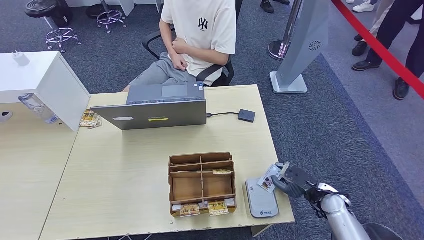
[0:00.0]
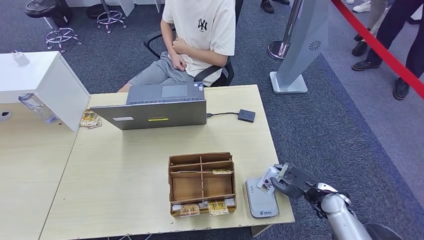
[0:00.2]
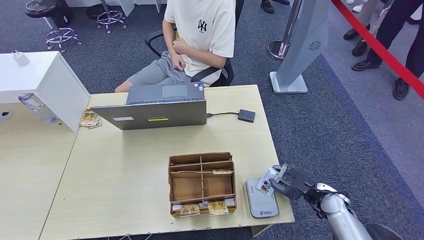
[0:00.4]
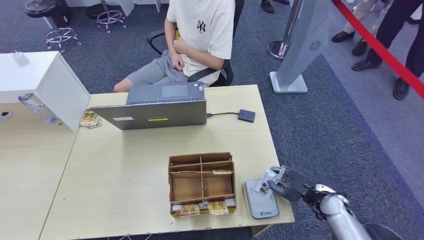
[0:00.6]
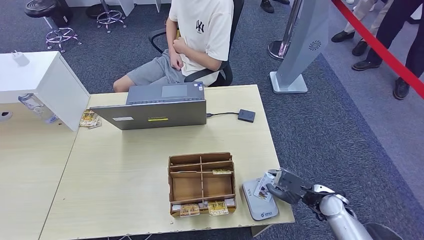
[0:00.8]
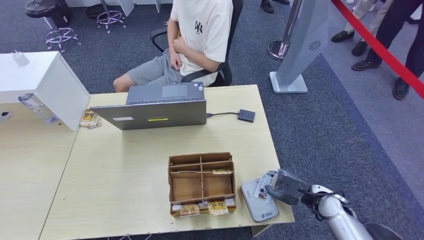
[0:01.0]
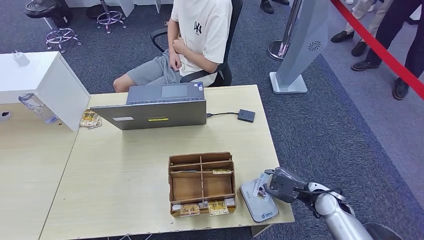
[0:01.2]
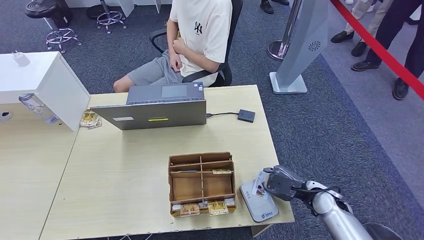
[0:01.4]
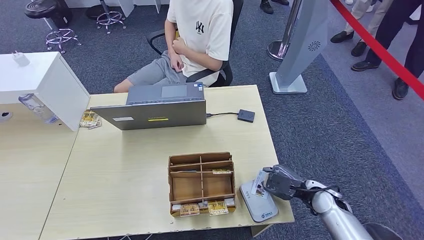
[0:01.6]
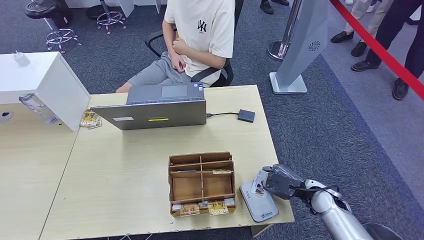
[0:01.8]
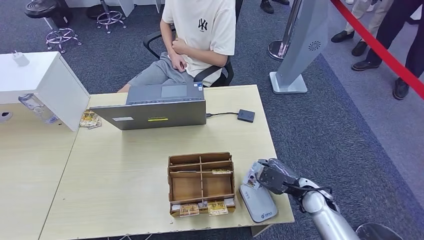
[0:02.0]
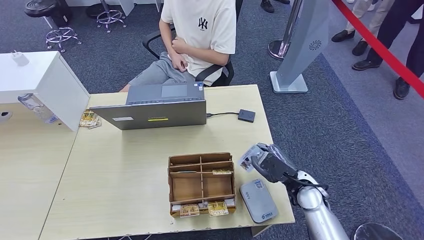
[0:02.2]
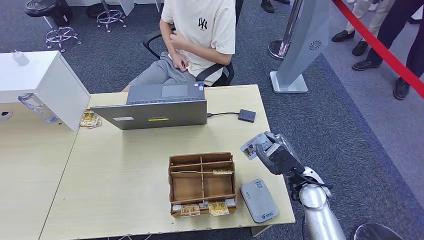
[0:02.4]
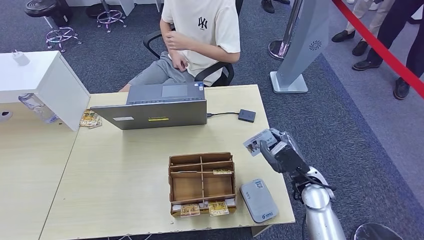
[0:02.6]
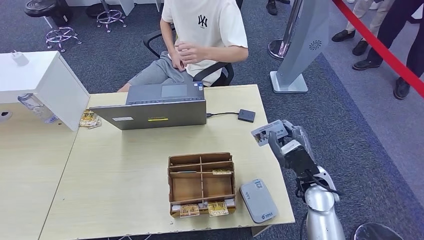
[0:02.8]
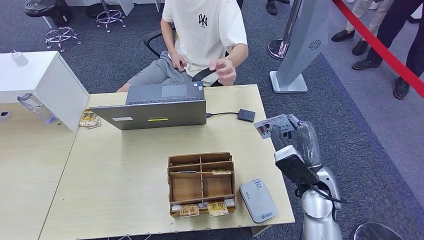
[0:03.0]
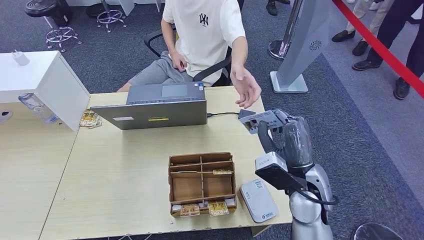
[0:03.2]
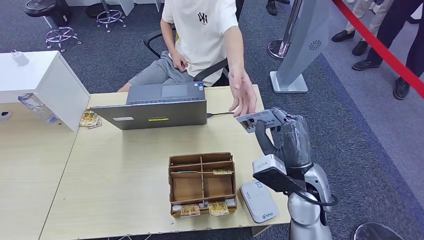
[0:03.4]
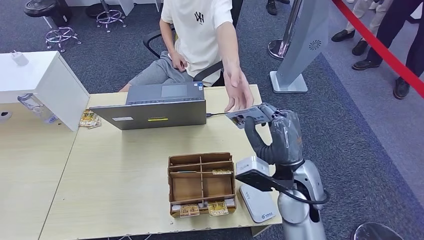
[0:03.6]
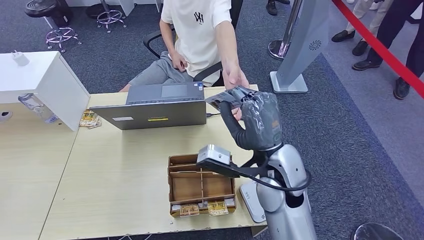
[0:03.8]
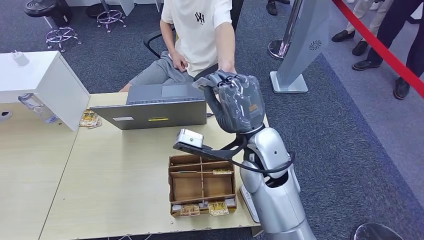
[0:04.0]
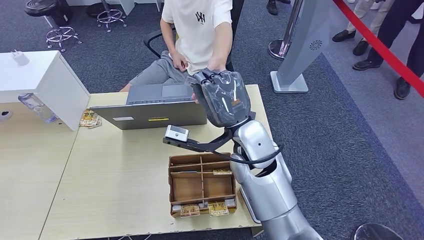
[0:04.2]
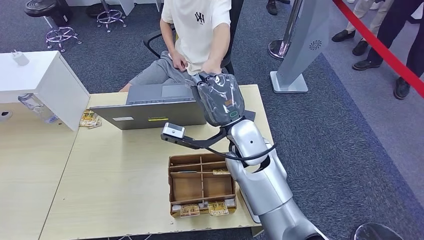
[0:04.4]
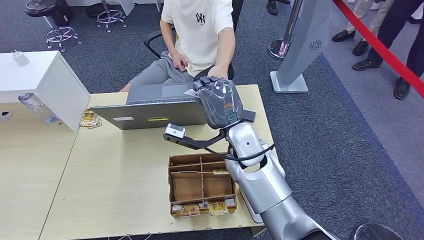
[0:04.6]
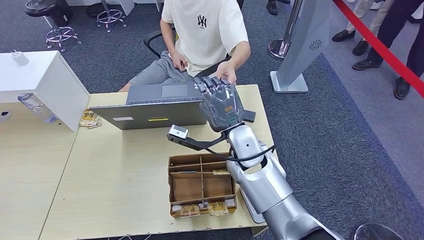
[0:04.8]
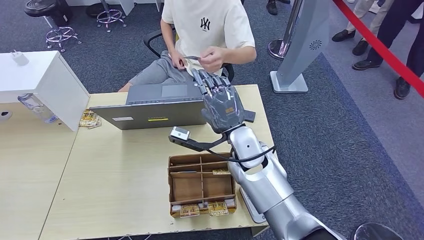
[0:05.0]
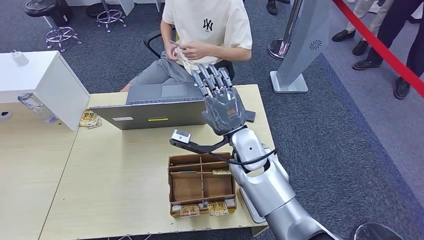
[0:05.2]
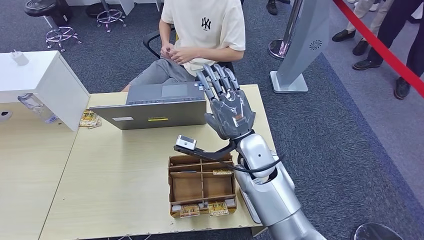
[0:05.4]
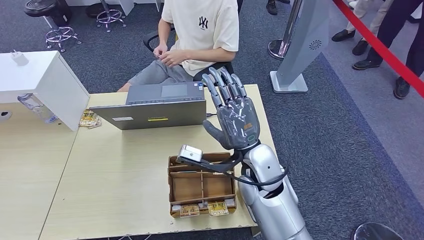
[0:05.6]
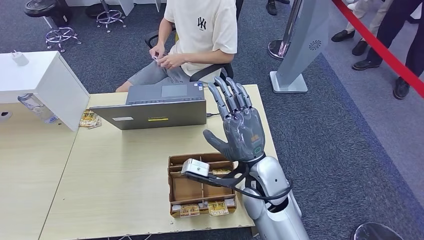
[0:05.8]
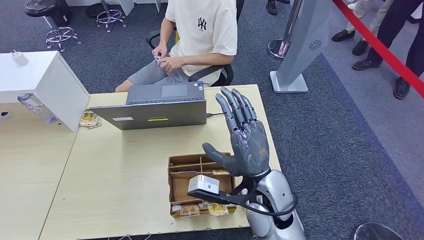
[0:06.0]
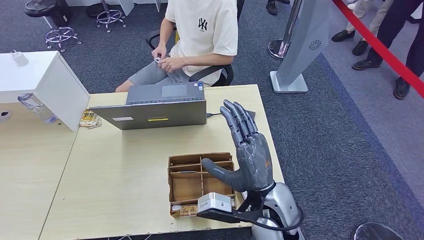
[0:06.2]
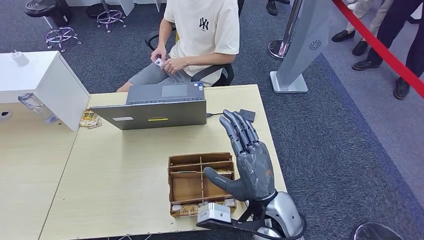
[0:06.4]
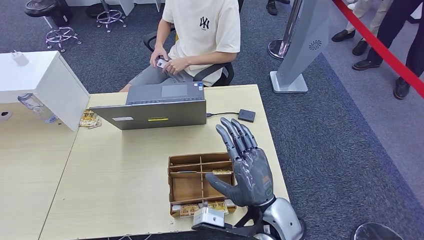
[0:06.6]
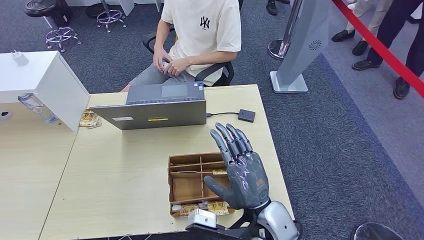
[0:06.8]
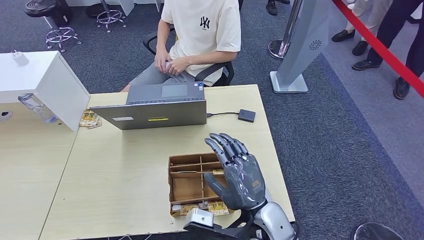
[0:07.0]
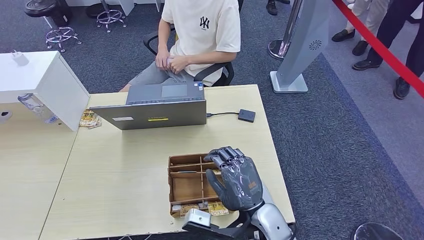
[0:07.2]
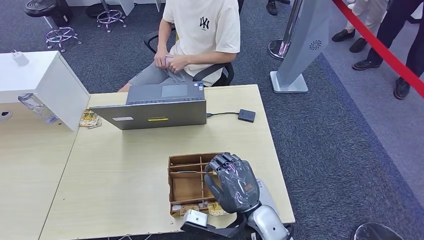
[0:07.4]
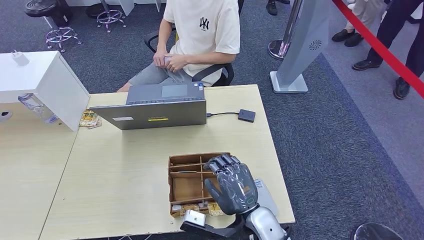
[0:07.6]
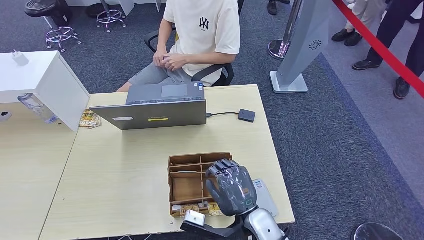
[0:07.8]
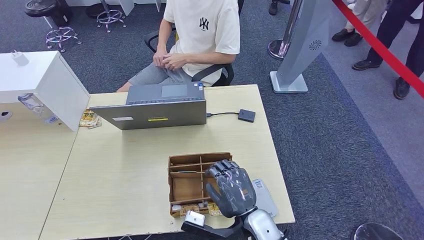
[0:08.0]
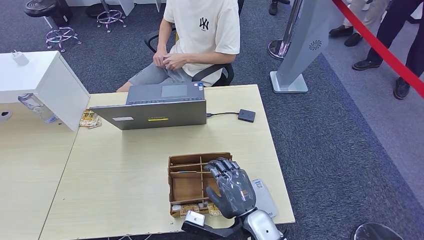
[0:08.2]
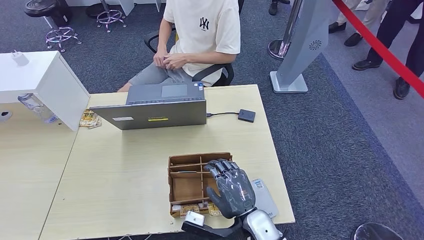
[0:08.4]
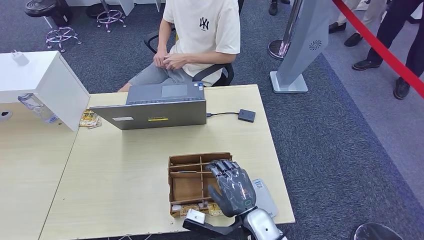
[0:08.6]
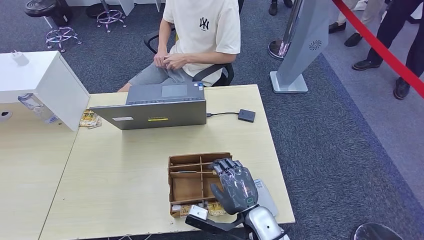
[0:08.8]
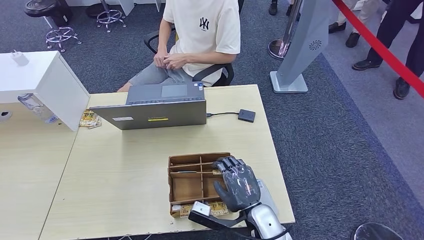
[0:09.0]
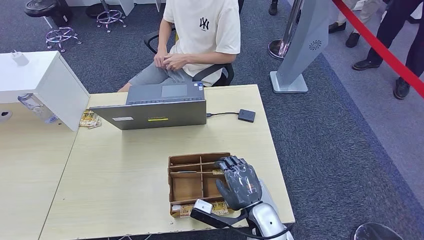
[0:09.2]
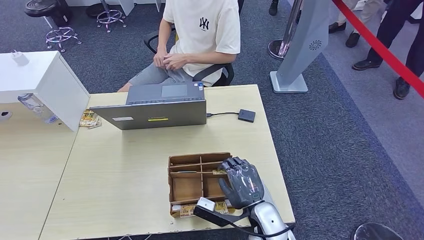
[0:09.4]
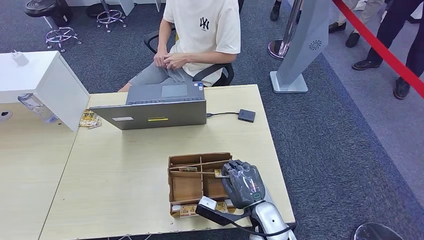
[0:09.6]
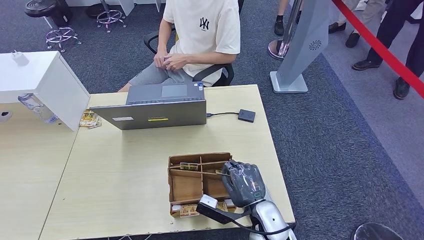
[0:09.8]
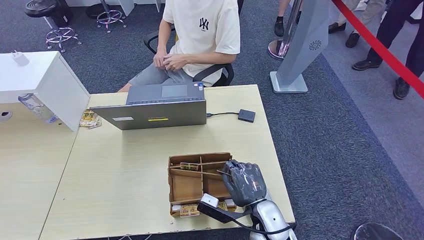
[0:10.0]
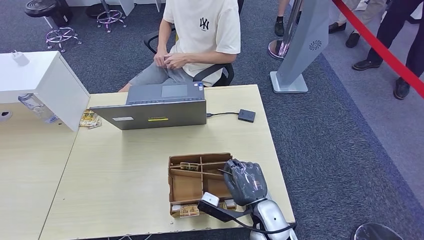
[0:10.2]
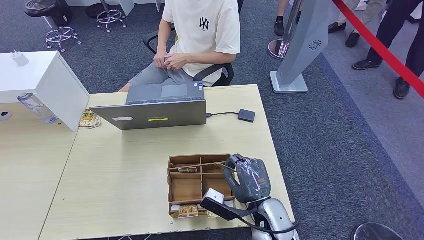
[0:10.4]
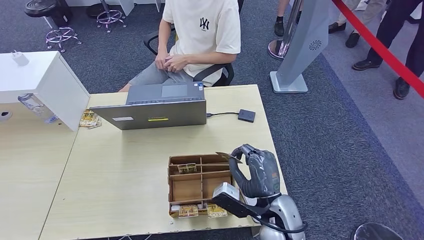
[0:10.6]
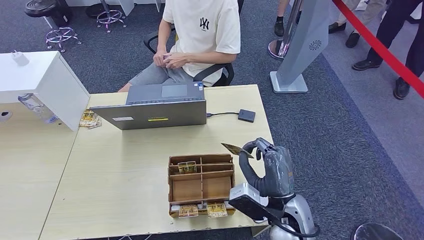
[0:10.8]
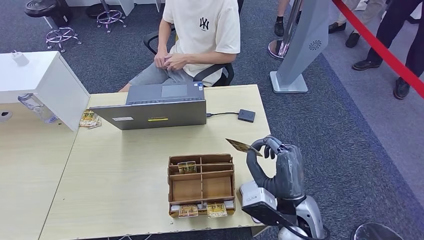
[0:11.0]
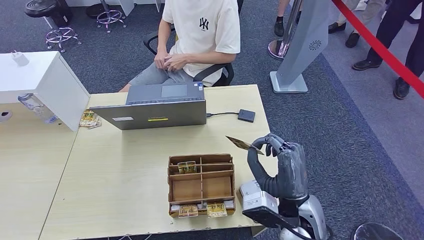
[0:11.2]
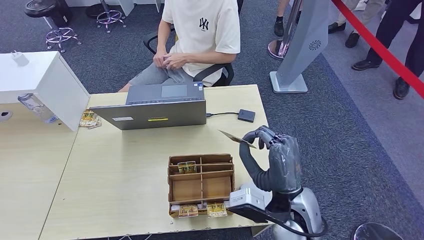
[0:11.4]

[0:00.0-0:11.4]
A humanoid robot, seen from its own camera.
Step, 0:00.0 to 0:03.0: Place the ID card on the card reader.
Step, 0:03.4 to 0:05.4: Hand the ID card to the person.
Step, 0:09.6 to 0:11.2: Pick up the room key from the key card box.
0:00.0 to 0:01.4: The hands make only small movements.
0:01.4 to 0:02.8: The right hand travels upward and to the left by about 10 cm.
0:02.8 to 0:04.2: The right hand heads to the left and upward, covering roughly 20 cm.
0:04.2 to 0:05.6: The right hand changes place by about 5 cm.
0:05.6 to 0:07.2: The right hand shifts some 15 cm backward and downward.
0:07.2 to 0:08.6: The right hand shifts about 5 cm downward.
0:08.6 to 0:10.0: The hands stay close to where they were, moving slightly.
0:10.0 to 0:11.4: The right hand goes approximately 10 cm upward.

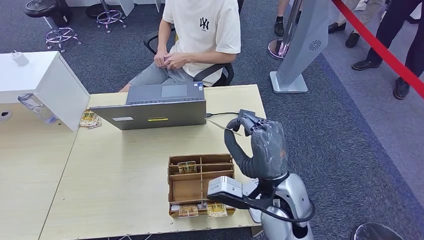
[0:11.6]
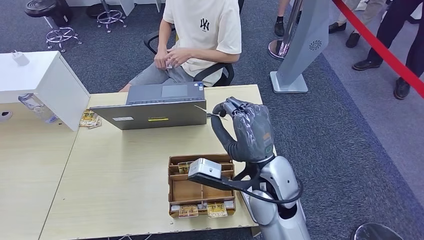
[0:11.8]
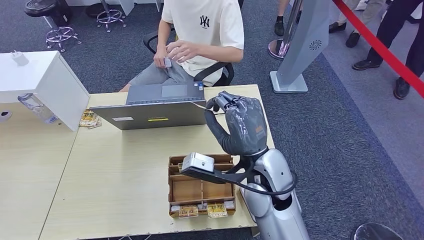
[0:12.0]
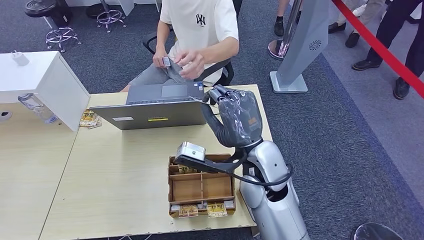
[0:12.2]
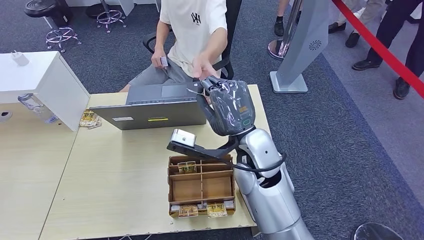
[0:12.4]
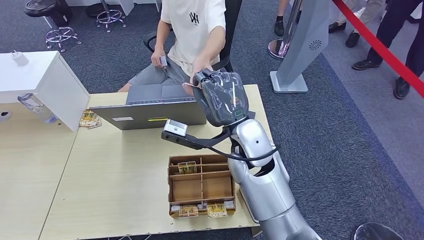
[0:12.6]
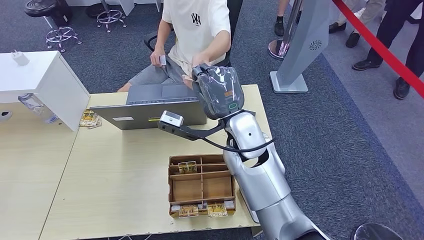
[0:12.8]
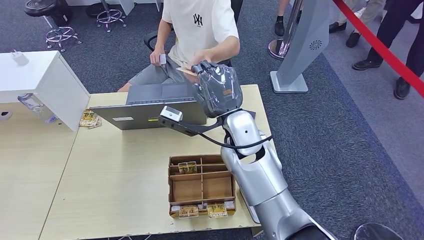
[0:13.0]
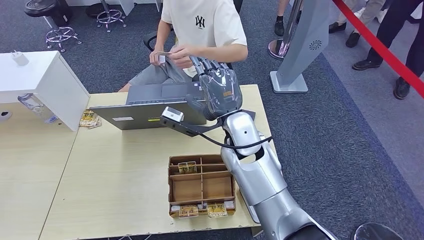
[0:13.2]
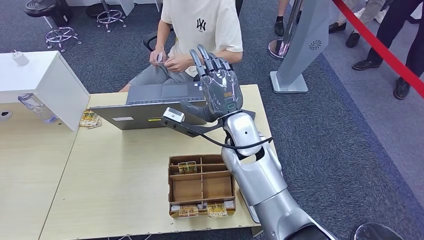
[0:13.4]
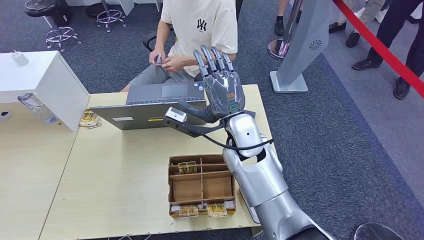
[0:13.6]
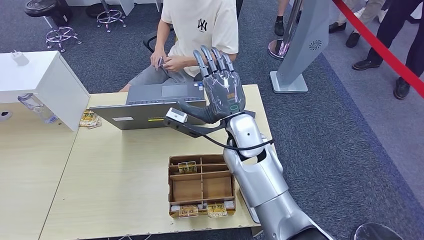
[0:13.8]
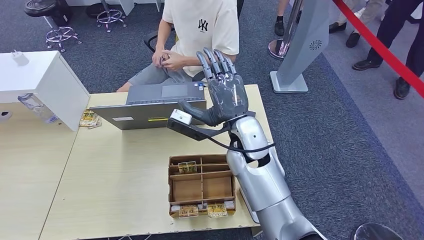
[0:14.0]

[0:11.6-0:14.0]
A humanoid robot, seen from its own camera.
Step, 0:11.6 to 0:14.0: Hand the room key to the person.
0:11.6 to 0:12.8: The right hand shifts approximately 15 cm forward and to the left.
0:12.8 to 0:14.0: There are only small adjustments of the hands.
